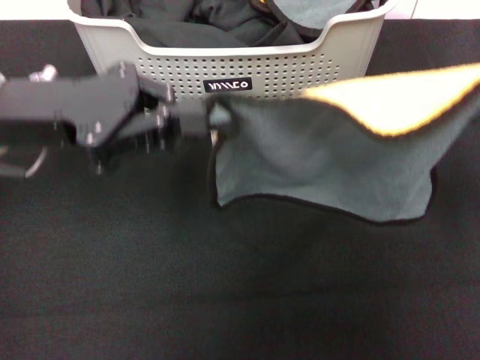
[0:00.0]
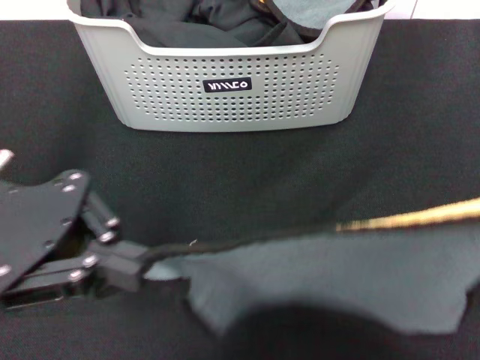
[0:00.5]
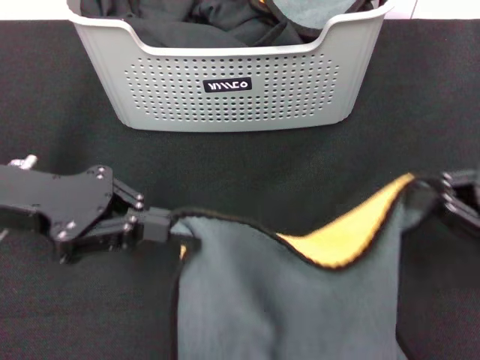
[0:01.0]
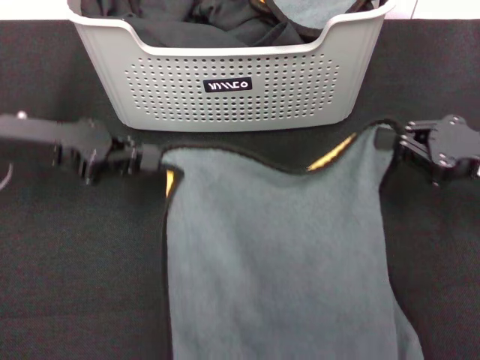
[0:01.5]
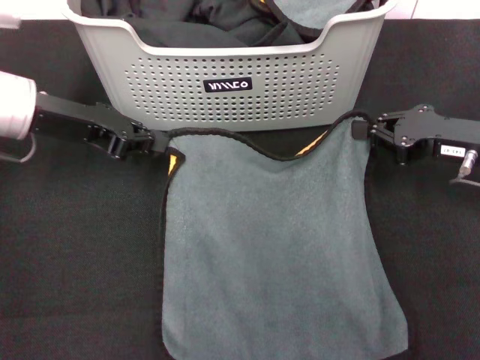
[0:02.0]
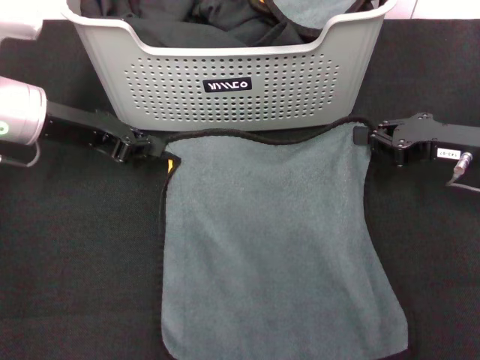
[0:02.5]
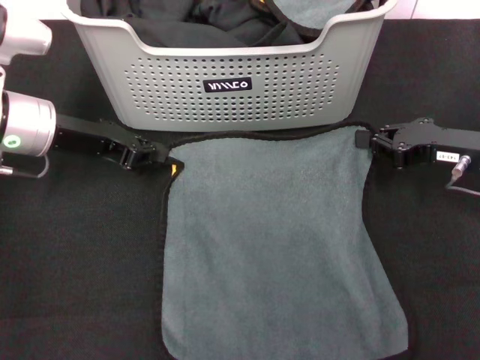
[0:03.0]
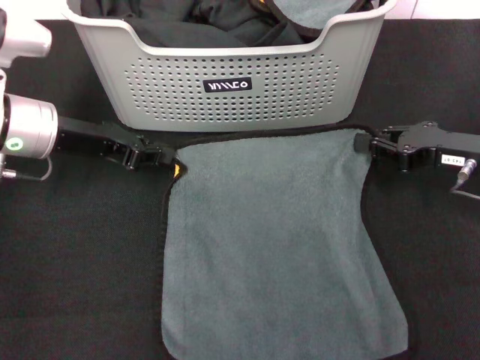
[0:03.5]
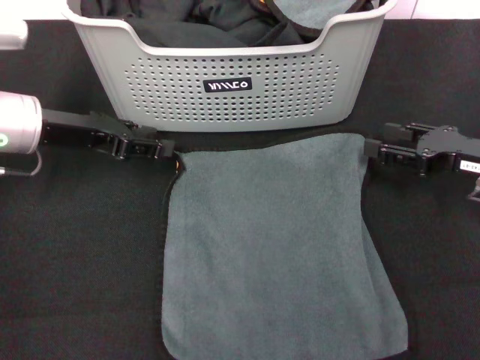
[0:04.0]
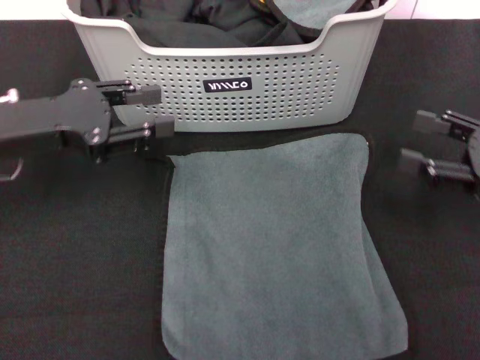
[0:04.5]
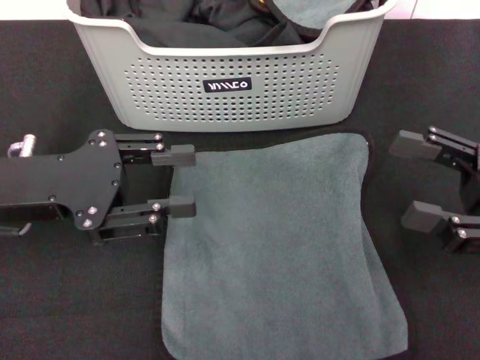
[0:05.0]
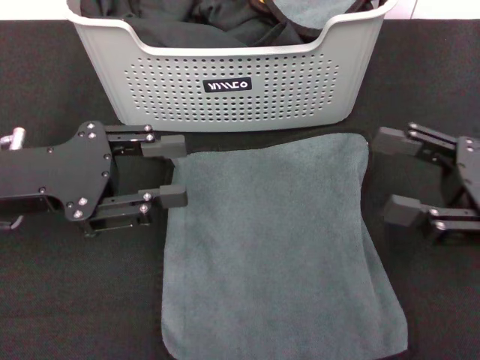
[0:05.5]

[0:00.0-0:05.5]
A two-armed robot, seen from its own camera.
Task of the whole recording: pick up the towel from the storage box and lay it flat on the black tablecloth.
Step, 0:00.0 to 0:03.5: Spread the towel flat with the right gripper.
0:00.0 to 0:02.0: The left gripper travels forward by about 5 cm. The right gripper is displaced forward, to the left and downward by about 15 cm.
0:02.0 to 0:03.5: The grippers move only a little.
0:03.5 to 0:05.5: Both grippers travel together backward, some 10 cm. The right gripper opens; the left gripper opens its fingers.
